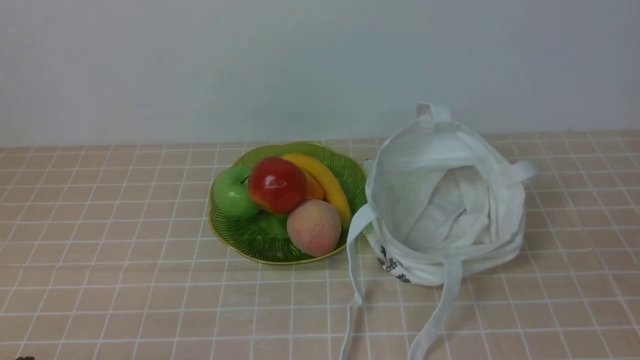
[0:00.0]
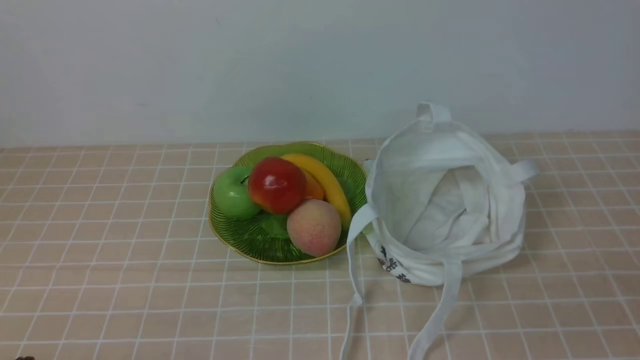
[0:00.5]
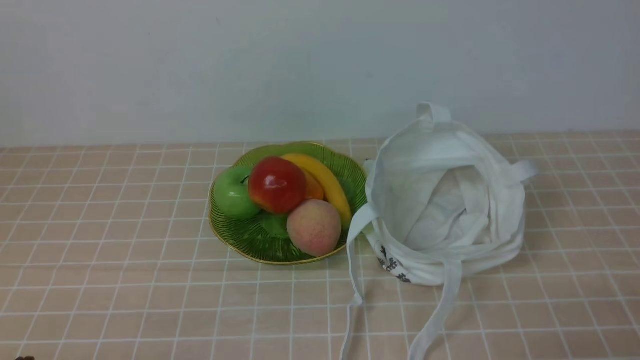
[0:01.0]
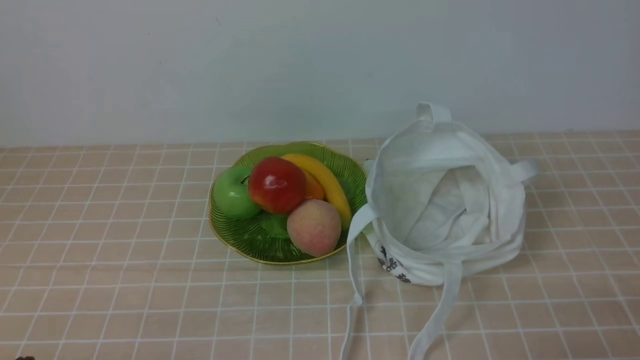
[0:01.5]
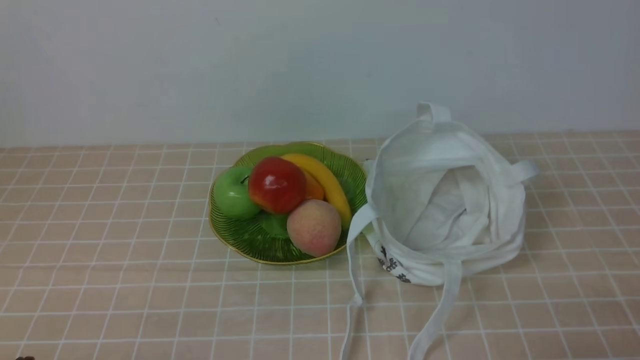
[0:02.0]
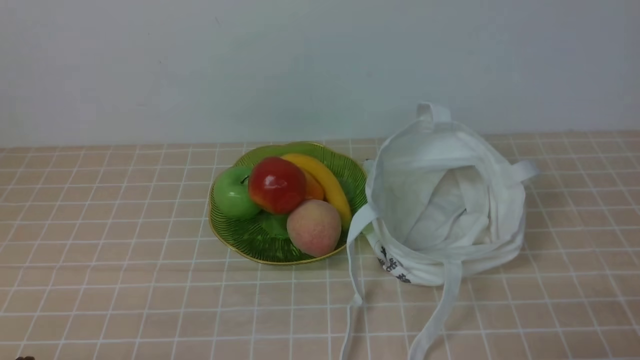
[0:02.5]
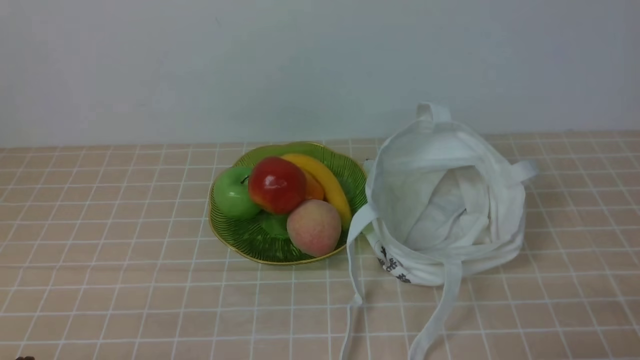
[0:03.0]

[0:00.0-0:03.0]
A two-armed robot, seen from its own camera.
0:01.5 to 0:03.0: Both grippers stay put.

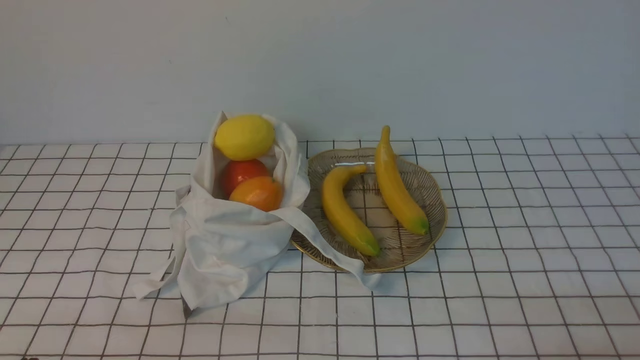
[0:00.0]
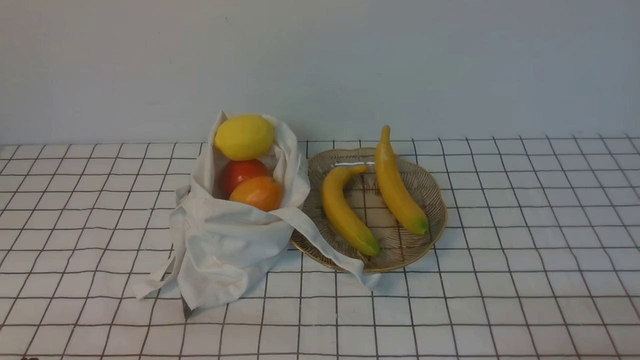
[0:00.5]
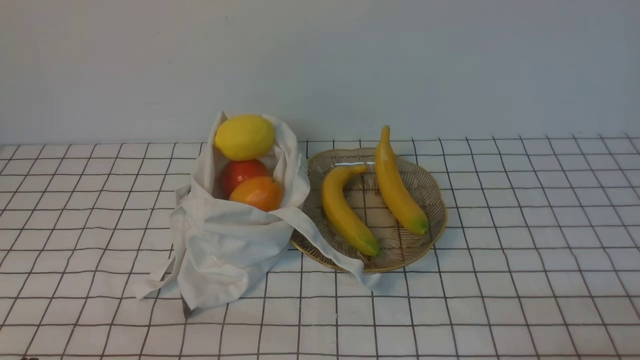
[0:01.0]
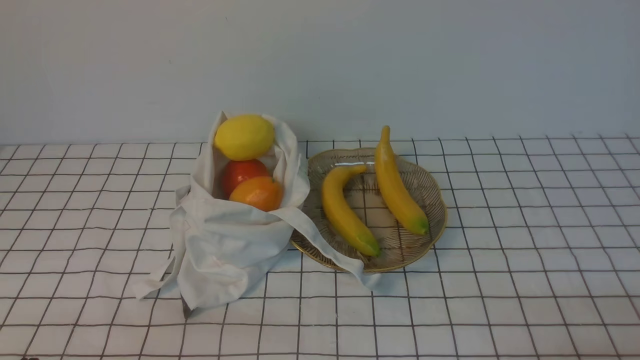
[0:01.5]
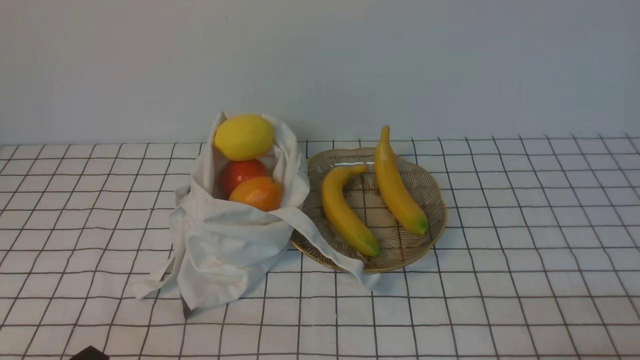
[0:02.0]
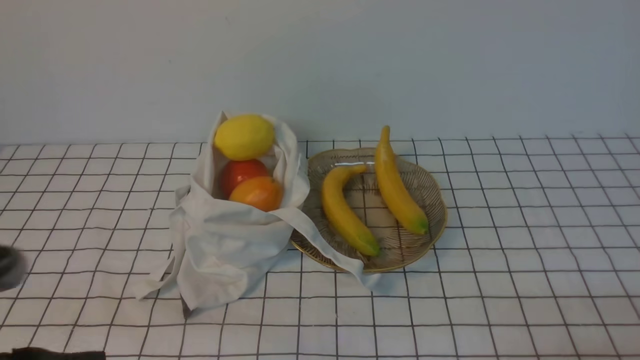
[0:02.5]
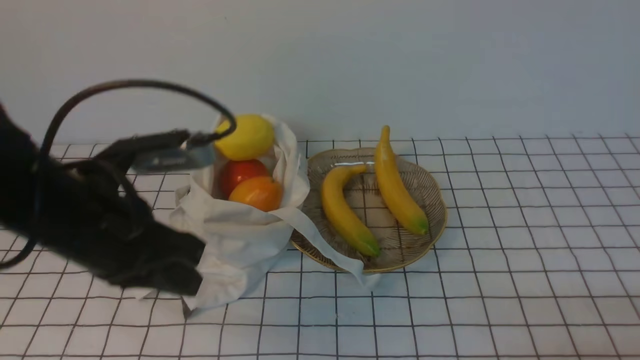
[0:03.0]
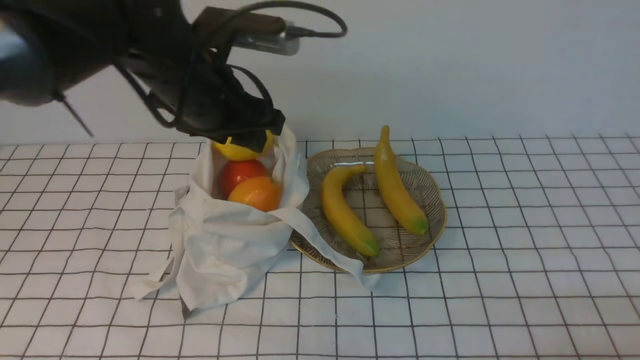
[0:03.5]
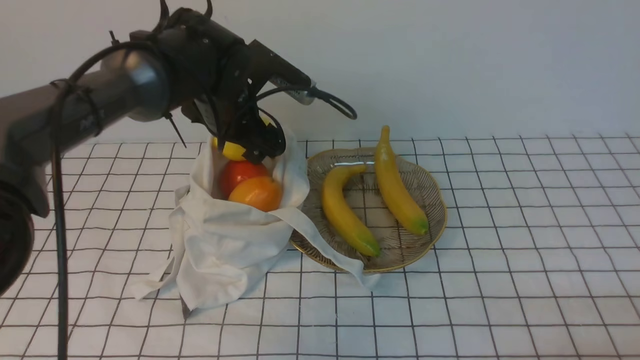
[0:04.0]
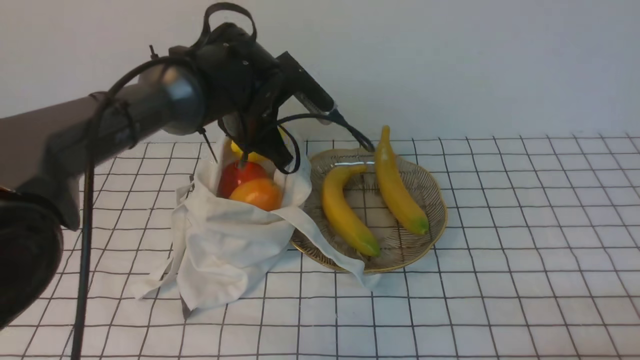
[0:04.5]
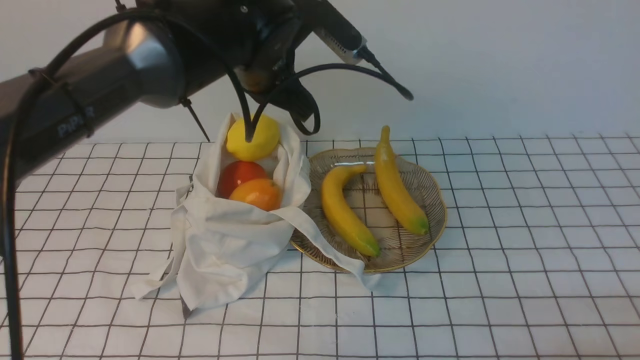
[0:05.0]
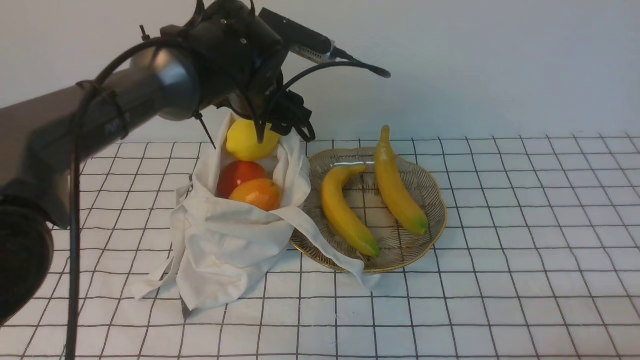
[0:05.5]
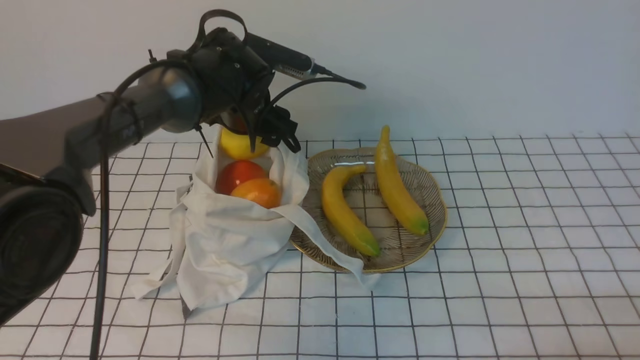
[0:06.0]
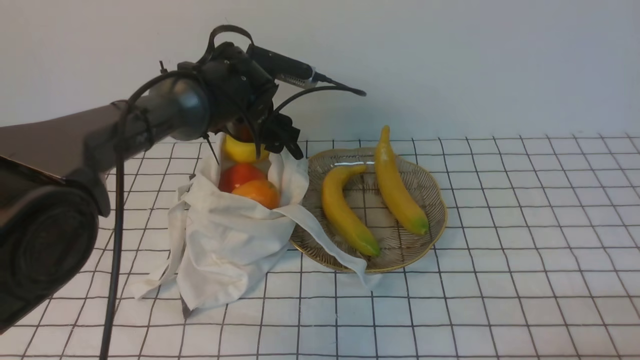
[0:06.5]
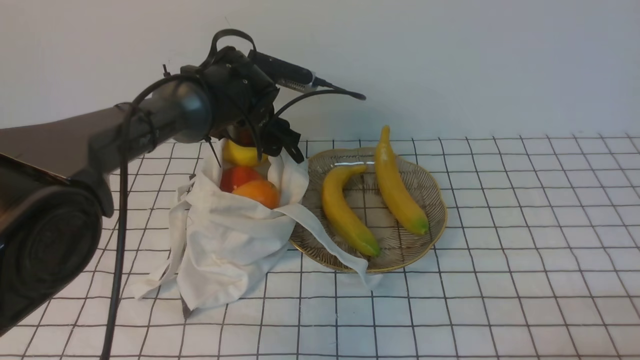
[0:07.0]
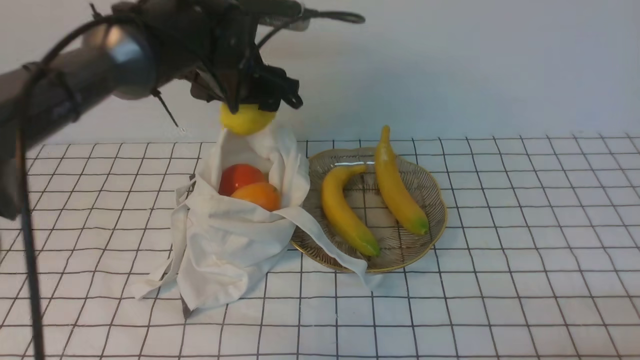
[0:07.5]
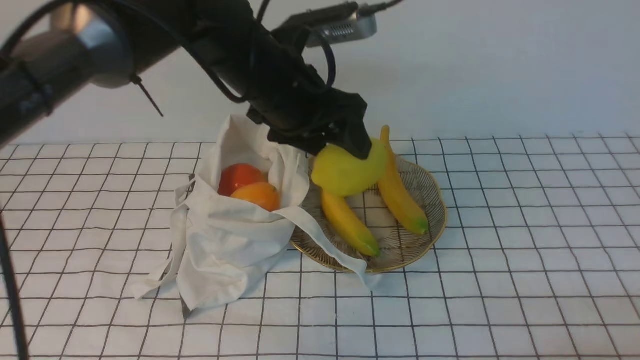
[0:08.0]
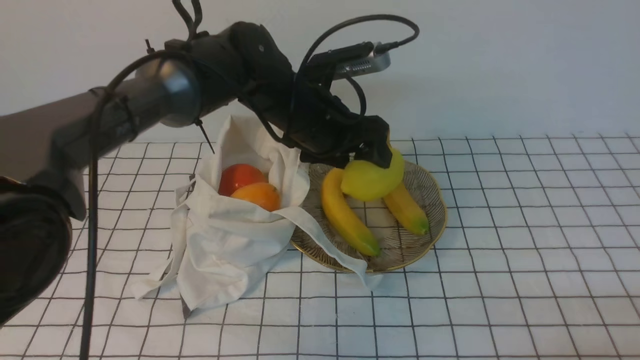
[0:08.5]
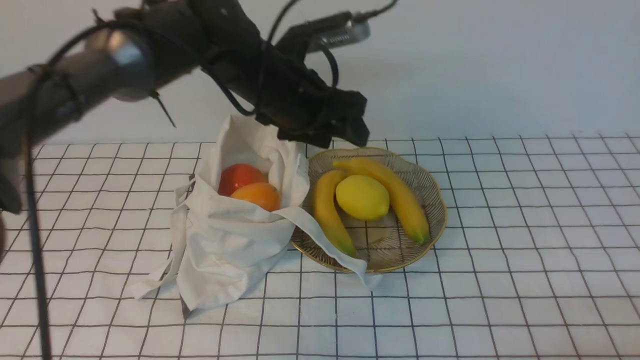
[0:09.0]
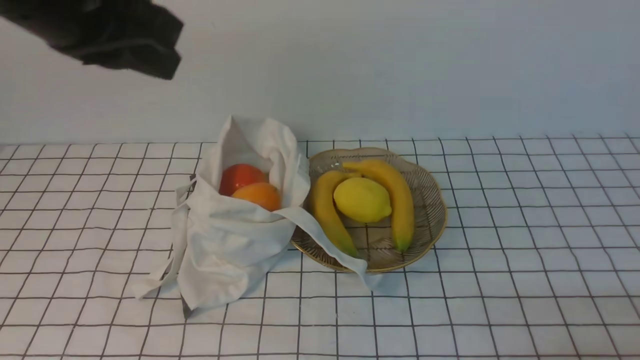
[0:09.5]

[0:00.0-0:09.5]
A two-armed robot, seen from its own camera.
Step, 0:00.0 to 0:07.0: use the left arm to grab a lemon from the bag.
Step, 0:07.5 to 0:08.5: use the left arm to put the lemon into the empty plate on the right.
0:02.0 to 0:04.0: The left gripper goes about 40 cm forward, and opens up.
0:04.0 to 0:05.5: The left gripper closes, then reopens.
0:05.5 to 0:07.5: The left gripper travels downward and back again, about 5 cm each way.
0:07.5 to 0:09.5: The left gripper heads backward, upward and to the left, covering some 25 cm, and closes.

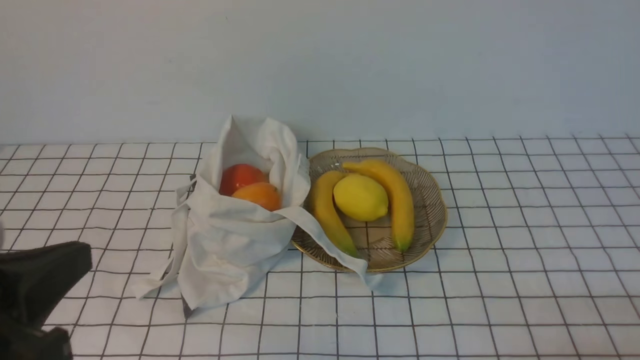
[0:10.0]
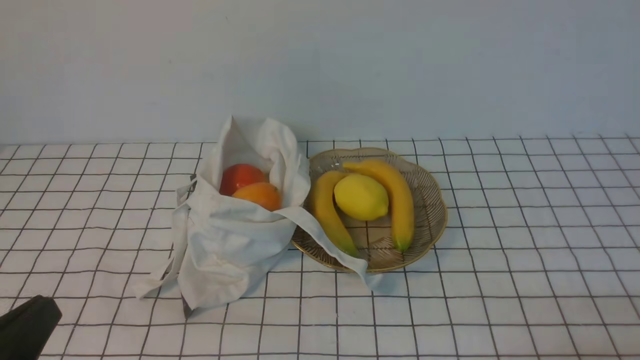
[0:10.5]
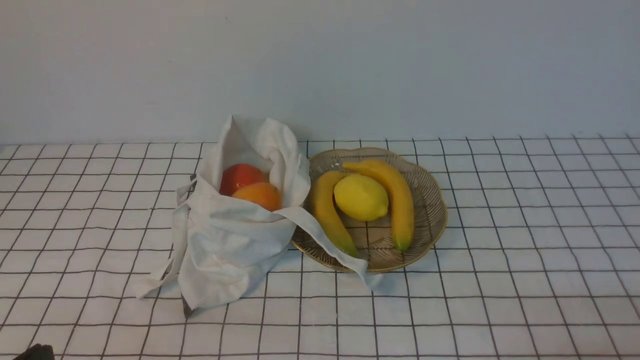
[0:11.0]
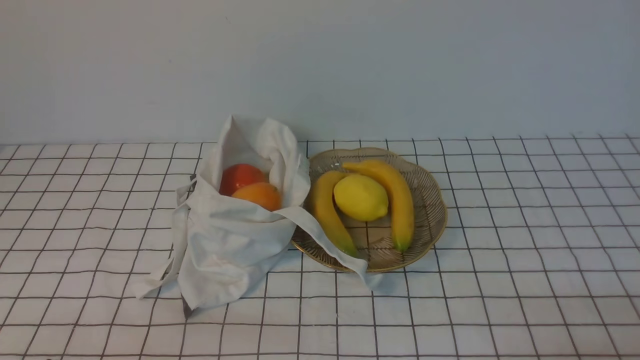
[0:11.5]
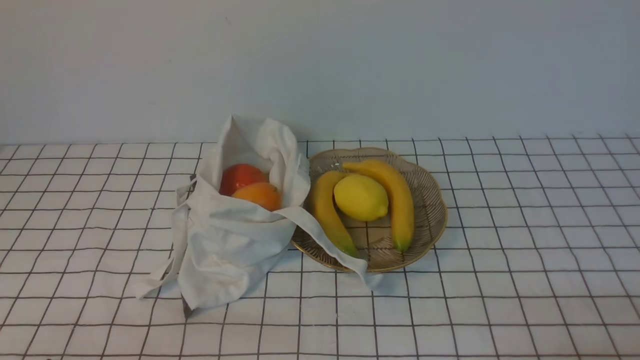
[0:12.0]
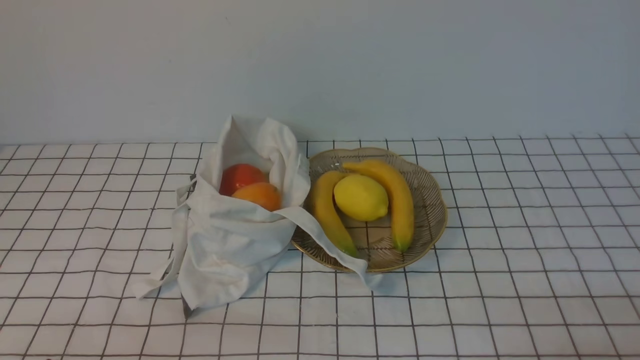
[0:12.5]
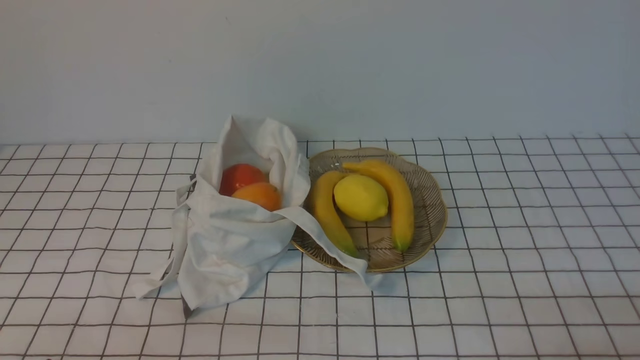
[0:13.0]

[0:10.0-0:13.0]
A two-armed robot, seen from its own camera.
0:10.0 to 0:11.5: The left gripper moves downward, about 15 cm.
0:11.5 to 0:13.0: Both grippers stay about where they are.
